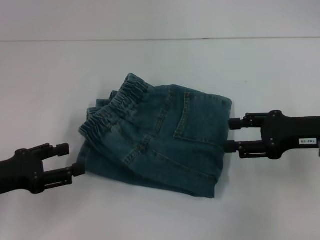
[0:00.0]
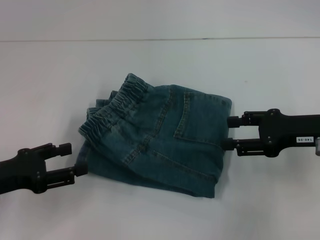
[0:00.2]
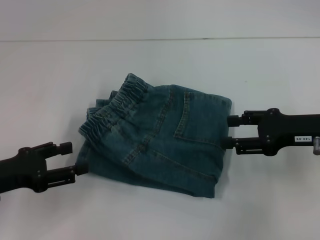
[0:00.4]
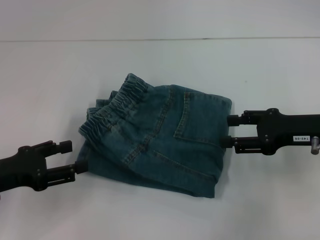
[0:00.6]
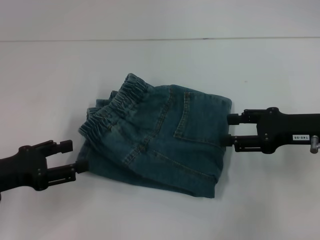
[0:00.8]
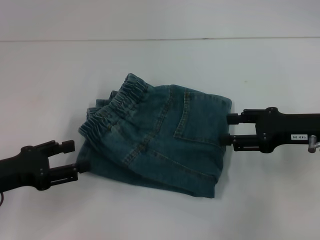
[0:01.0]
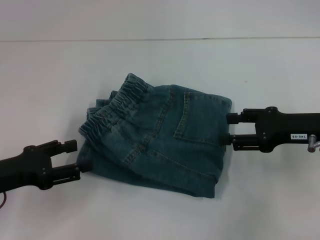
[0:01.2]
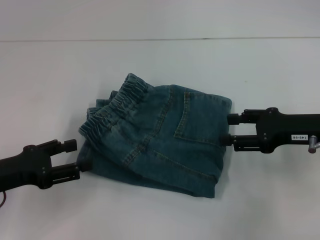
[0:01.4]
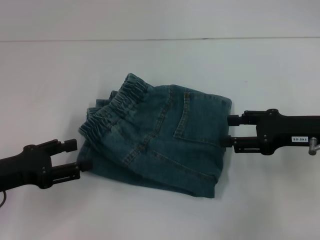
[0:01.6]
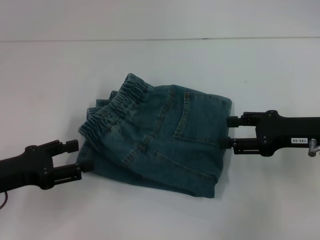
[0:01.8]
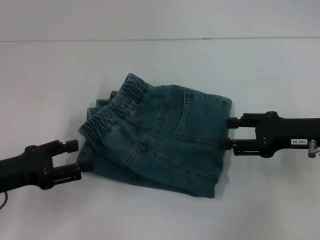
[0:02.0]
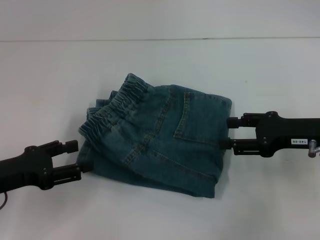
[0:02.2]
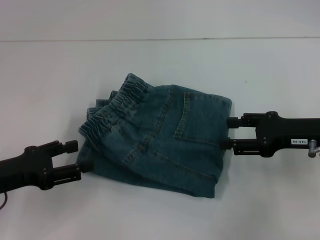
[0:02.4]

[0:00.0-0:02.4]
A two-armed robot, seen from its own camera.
0:00.0 to 0:01.2: The two grippers keep their place.
0:01.2 to 0:02.4: Both grippers stay about where they are.

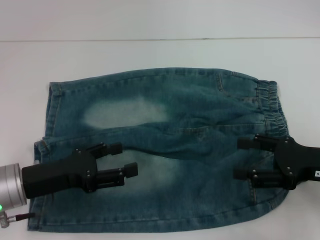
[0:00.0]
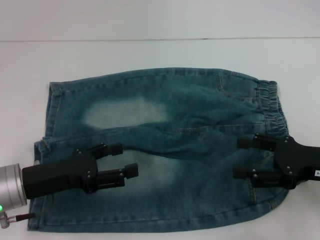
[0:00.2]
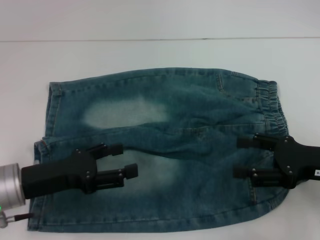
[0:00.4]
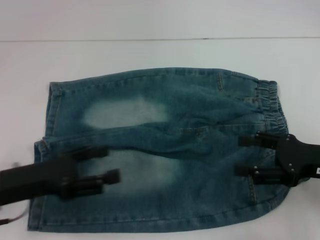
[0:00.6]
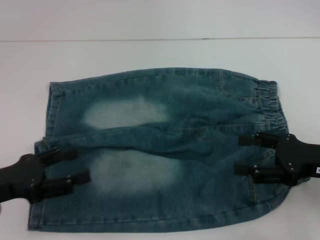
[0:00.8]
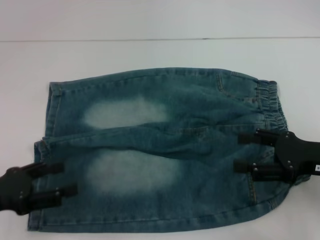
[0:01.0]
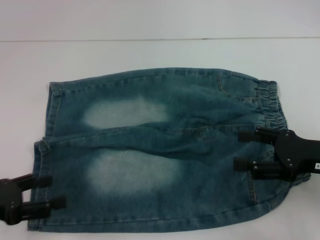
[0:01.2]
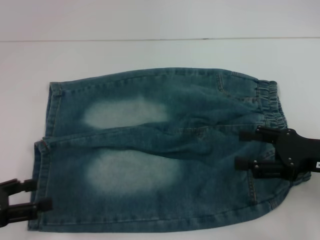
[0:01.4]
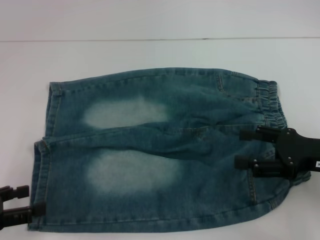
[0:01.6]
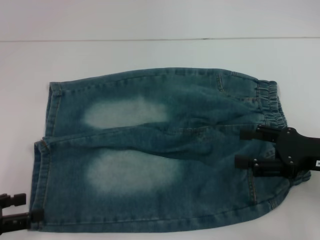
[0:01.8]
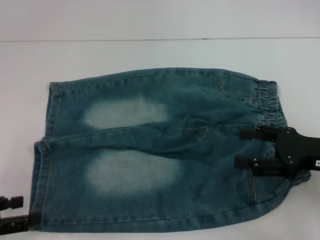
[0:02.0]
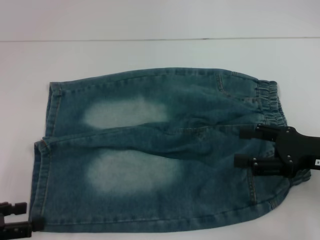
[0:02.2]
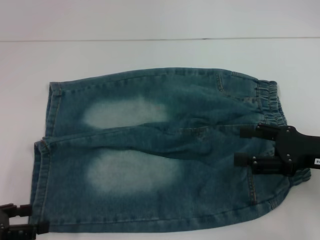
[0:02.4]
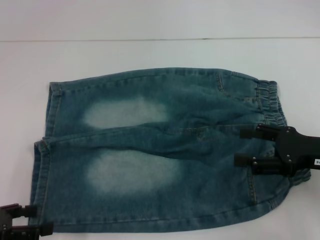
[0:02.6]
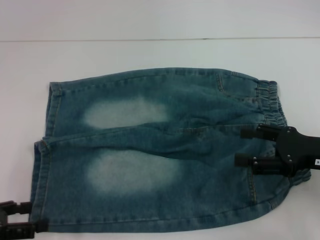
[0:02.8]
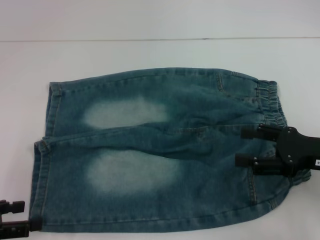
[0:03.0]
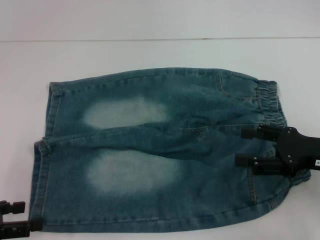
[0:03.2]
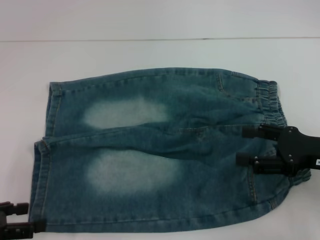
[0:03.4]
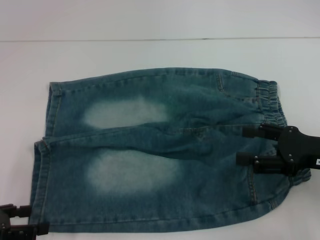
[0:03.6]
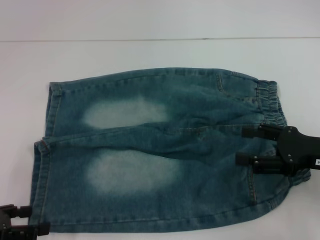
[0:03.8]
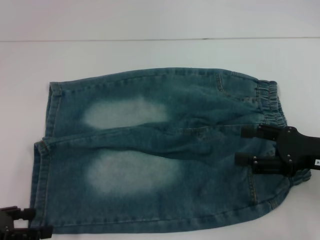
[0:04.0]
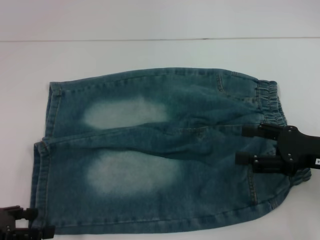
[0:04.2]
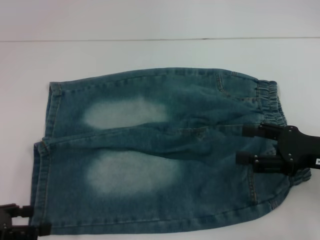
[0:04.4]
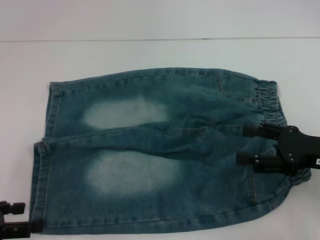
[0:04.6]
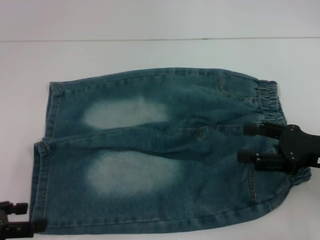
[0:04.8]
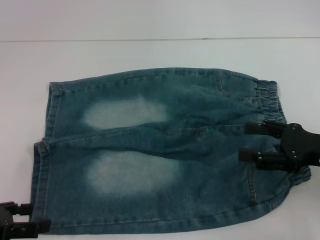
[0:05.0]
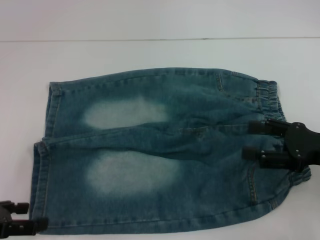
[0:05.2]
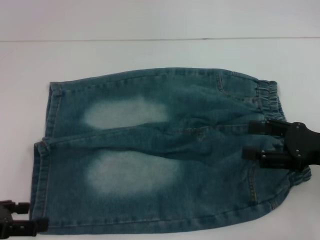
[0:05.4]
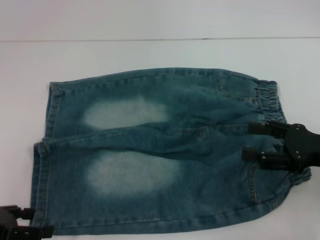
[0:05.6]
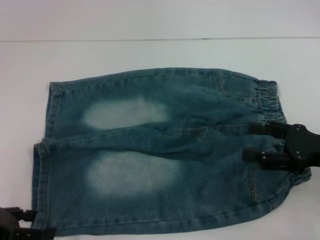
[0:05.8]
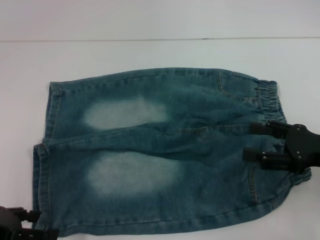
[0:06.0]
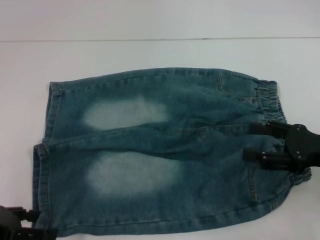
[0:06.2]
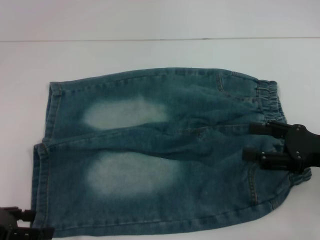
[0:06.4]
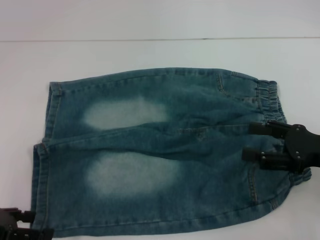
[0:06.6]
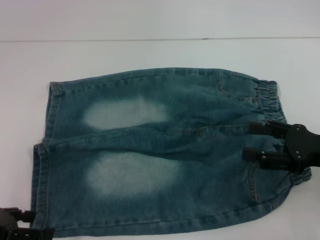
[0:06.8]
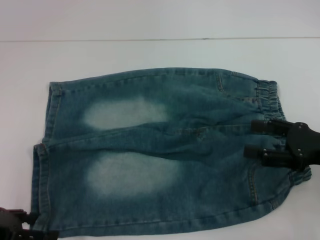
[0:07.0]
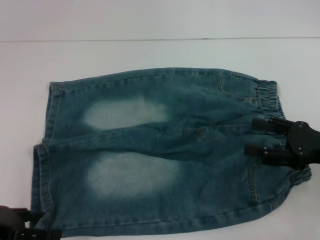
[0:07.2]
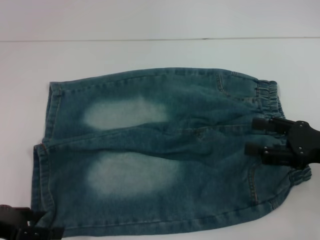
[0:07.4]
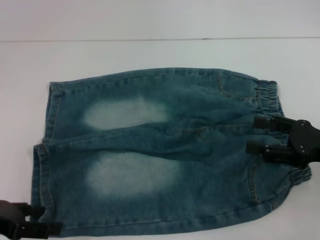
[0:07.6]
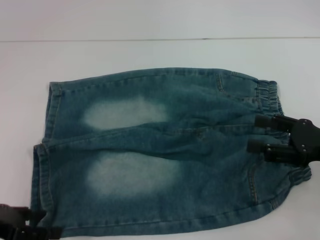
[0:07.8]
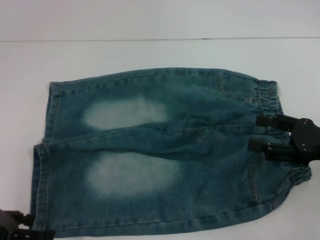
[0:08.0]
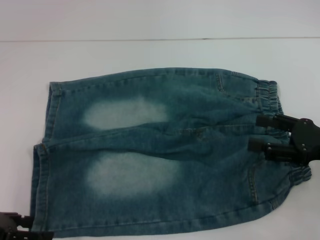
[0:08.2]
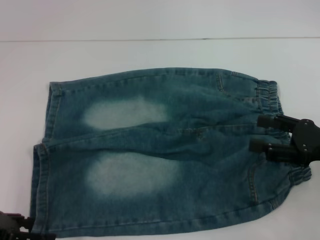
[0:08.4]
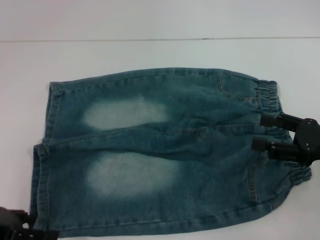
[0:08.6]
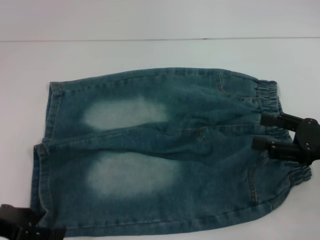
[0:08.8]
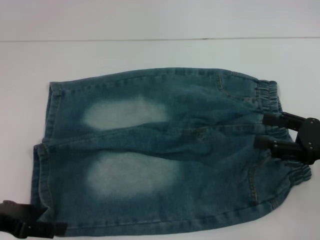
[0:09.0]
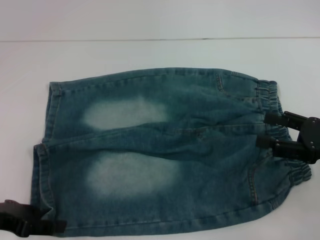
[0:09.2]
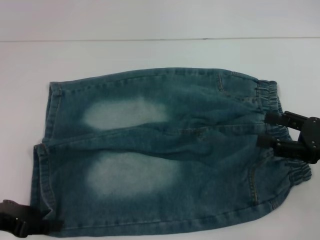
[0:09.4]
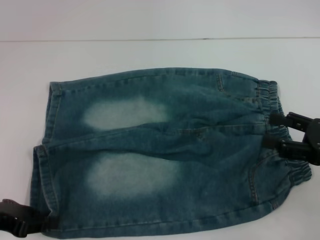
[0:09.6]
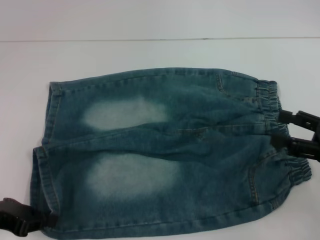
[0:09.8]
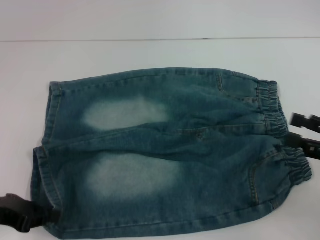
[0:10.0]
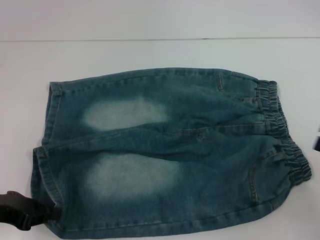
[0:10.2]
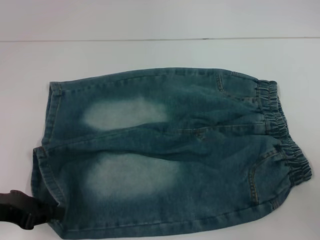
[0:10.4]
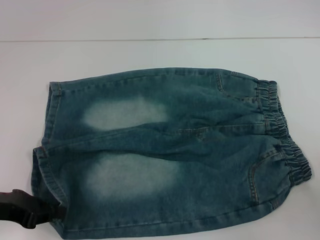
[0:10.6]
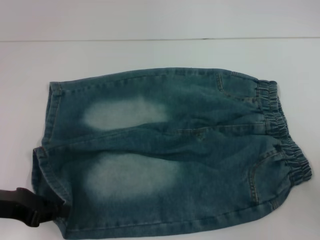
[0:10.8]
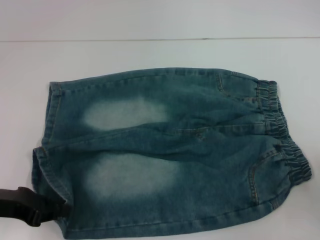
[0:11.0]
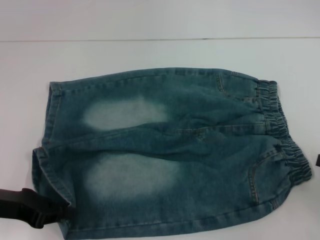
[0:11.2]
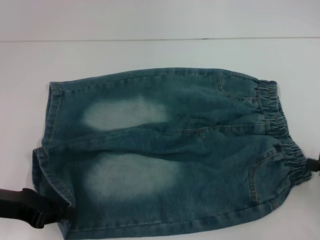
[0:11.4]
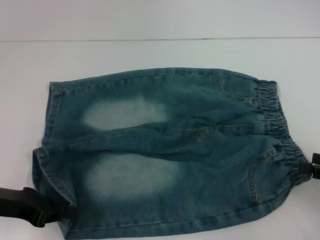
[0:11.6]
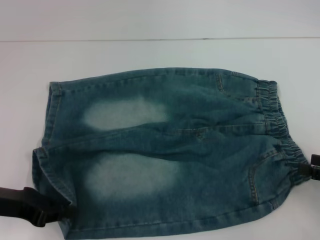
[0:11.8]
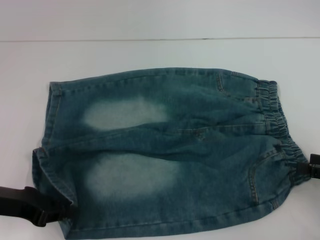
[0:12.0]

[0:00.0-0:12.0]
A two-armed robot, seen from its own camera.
Step, 0:00.0 to 0:10.0: Grab the lower left pant leg with your left hand.
0:00.0 to 0:01.6: The left gripper heads to the left and backward, covering roughly 15 cm.
0:01.6 to 0:06.0: The grippers move only a little.
0:06.0 to 0:07.6: Neither gripper changes place.
0:07.6 to 0:09.0: Neither gripper changes place.
0:09.0 to 0:10.4: The right gripper is displaced to the right and backward by some 10 cm. The left gripper closes its fingers.

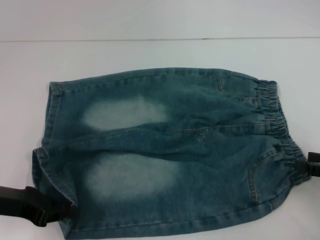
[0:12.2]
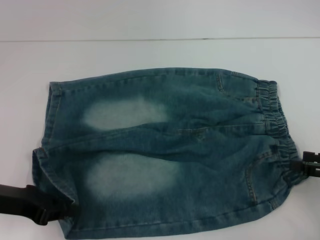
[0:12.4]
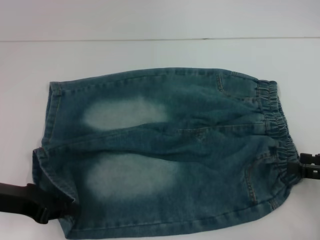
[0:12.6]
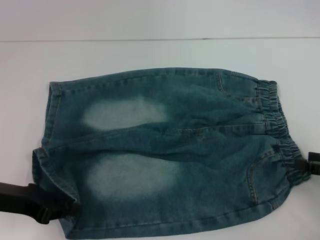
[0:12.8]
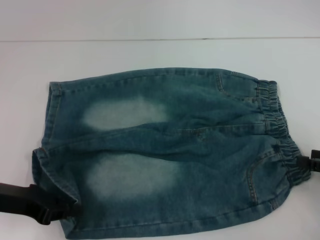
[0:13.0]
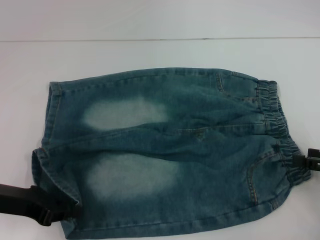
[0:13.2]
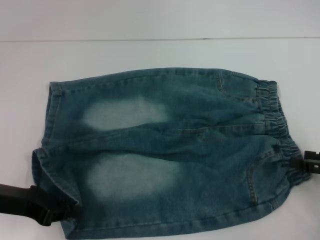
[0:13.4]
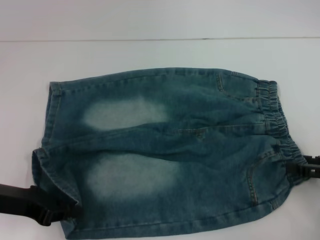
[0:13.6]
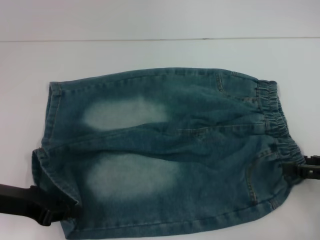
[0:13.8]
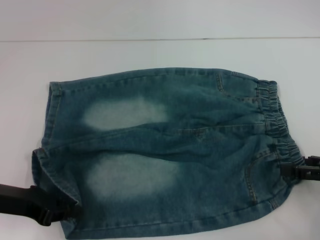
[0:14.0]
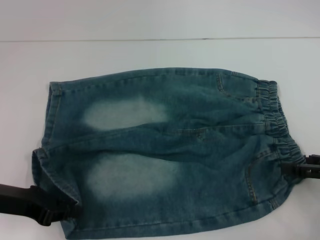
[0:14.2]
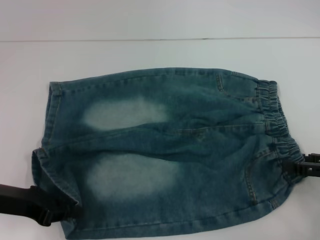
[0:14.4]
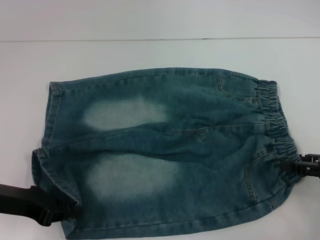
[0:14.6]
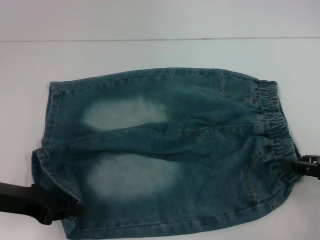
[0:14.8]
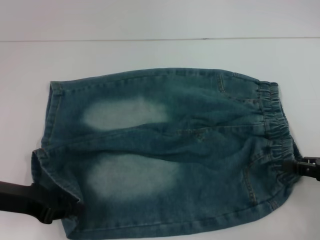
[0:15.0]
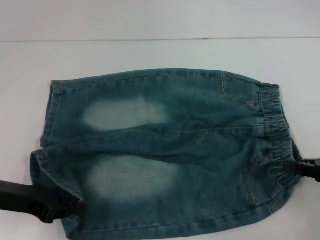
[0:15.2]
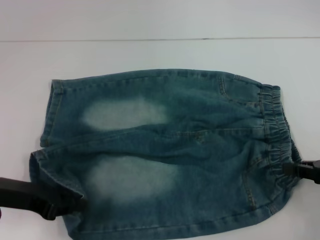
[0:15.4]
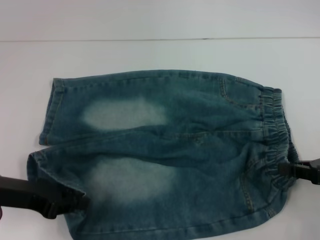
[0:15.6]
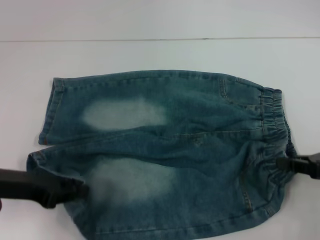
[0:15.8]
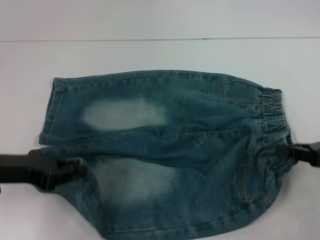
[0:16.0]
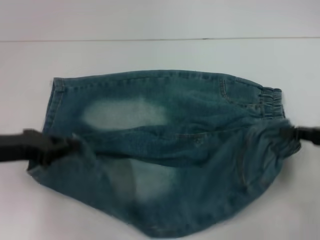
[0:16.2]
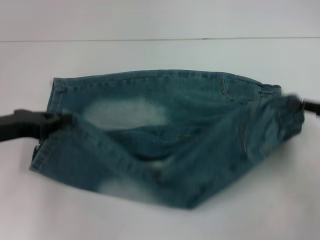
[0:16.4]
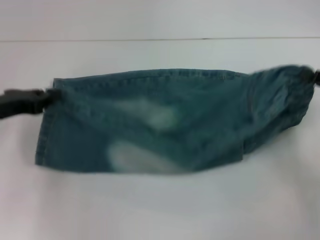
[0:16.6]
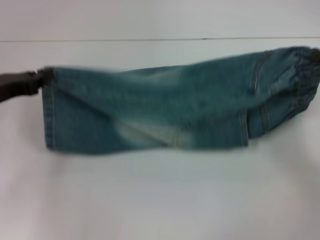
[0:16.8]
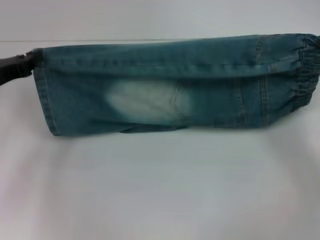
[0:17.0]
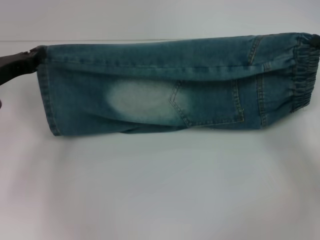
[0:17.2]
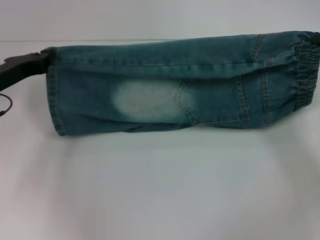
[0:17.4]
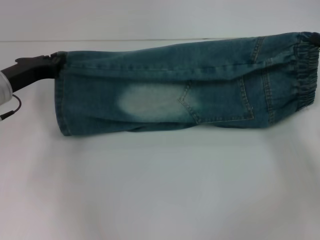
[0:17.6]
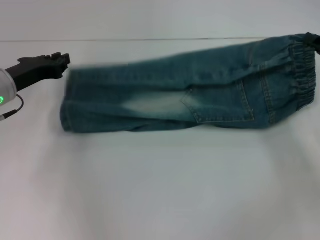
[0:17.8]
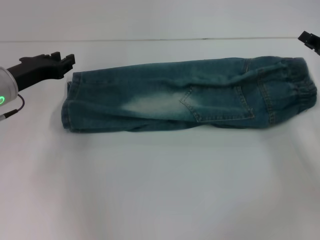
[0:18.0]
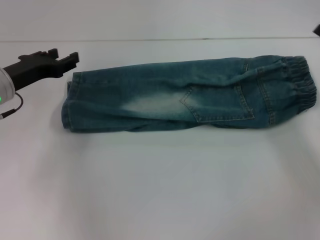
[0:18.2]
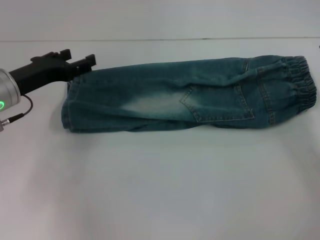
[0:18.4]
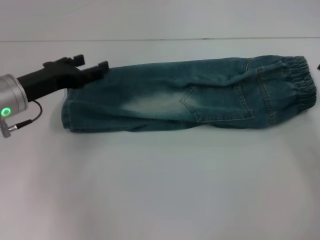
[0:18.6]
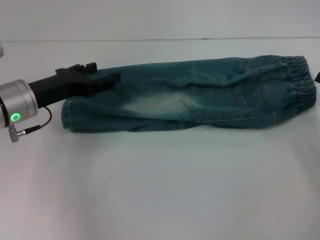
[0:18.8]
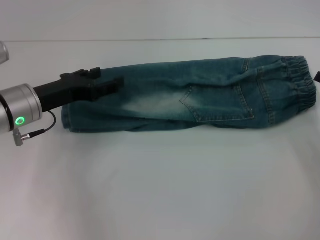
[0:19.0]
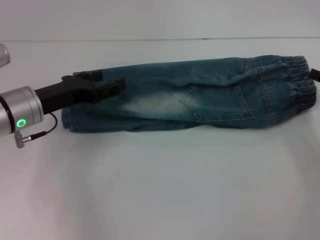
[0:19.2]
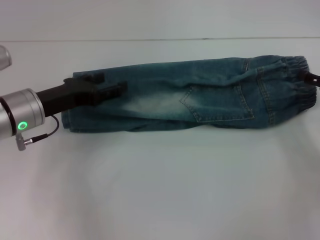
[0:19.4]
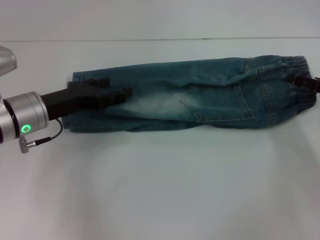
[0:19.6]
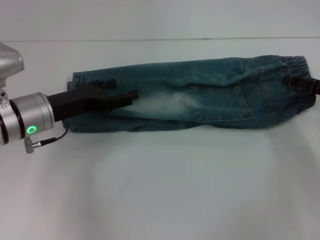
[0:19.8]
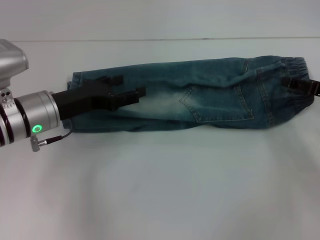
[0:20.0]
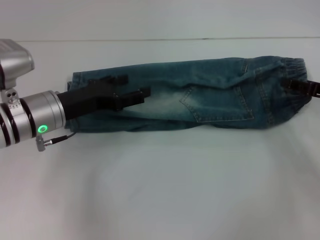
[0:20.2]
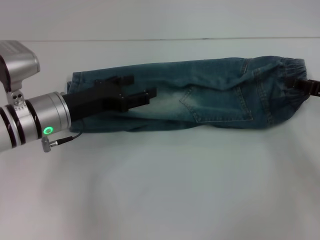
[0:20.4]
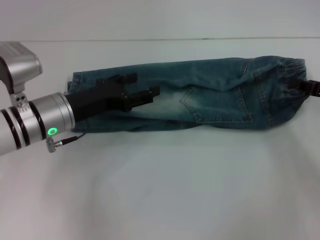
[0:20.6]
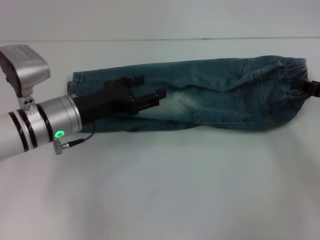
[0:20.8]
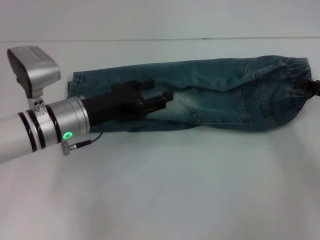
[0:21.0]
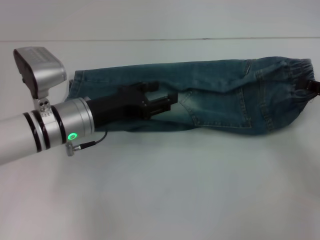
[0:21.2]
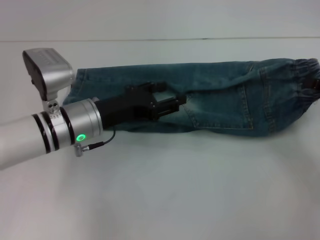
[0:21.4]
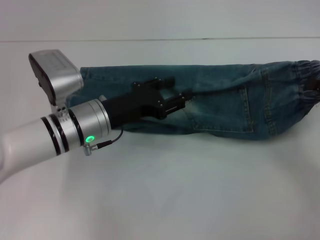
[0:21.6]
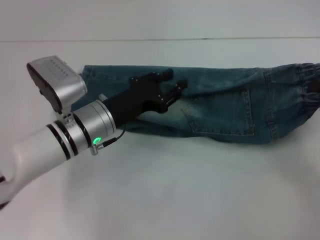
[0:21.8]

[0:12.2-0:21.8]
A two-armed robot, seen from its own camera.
Step, 0:12.2 to 0:15.4: Hold the lower right waistband with your right hand.
Step, 0:15.6 to 0:18.2: Fold upward with your right hand.
Step, 0:18.4 to 0:20.2: Grab the waistband with your right hand.
0:12.2 to 0:13.8: The grippers move only a little.
0:13.8 to 0:15.4: The right gripper closes.
0:15.4 to 0:17.0: The grippers both shift forward by roughly 10 cm.
0:17.0 to 0:18.6: The left gripper is displaced to the right by some 5 cm, and opens its fingers. Meanwhile the right gripper opens its fingers.
0:18.6 to 0:20.2: The right gripper ends up roughly 5 cm from where it was, while the left gripper shifts by roughly 5 cm.
0:20.2 to 0:21.8: The left gripper heads to the right, covering some 5 cm; the right gripper moves backward, approximately 5 cm, and closes up.
